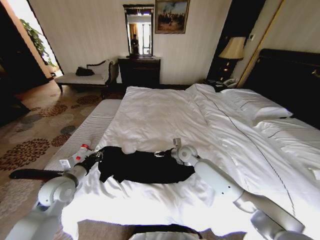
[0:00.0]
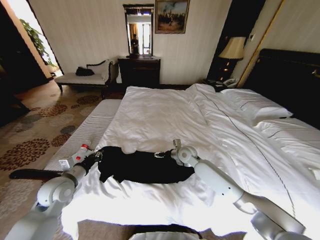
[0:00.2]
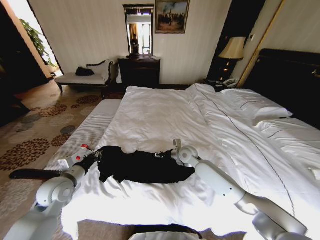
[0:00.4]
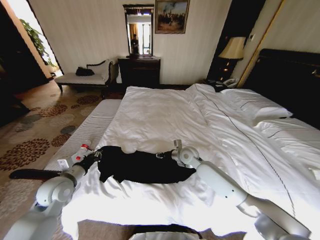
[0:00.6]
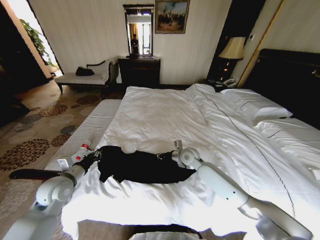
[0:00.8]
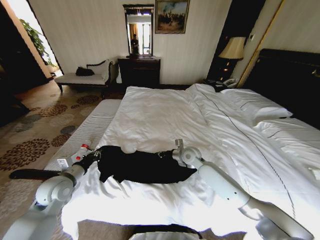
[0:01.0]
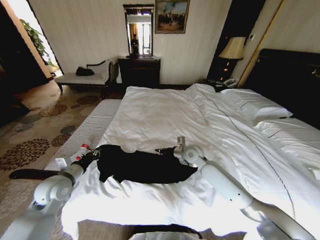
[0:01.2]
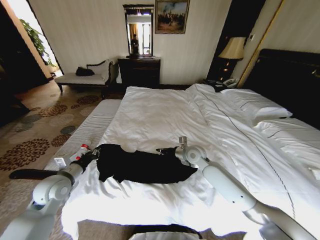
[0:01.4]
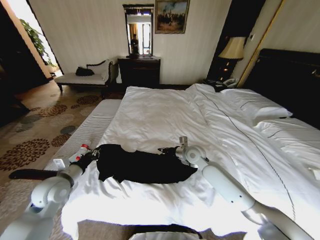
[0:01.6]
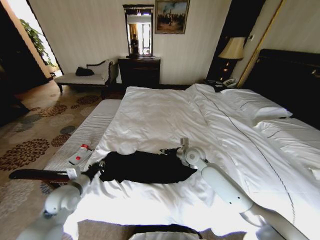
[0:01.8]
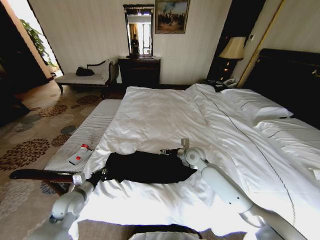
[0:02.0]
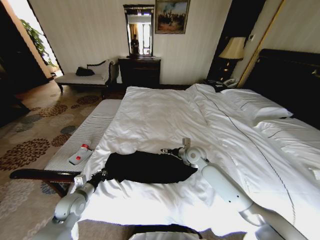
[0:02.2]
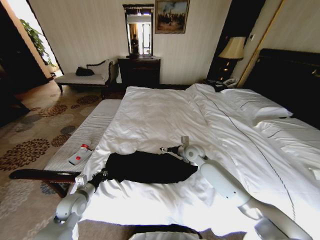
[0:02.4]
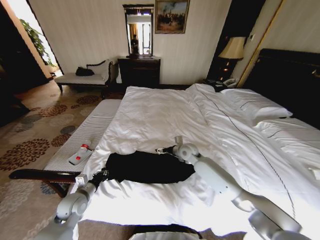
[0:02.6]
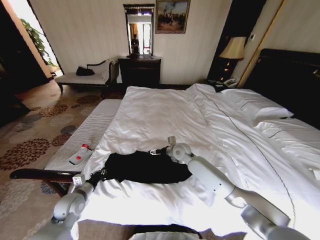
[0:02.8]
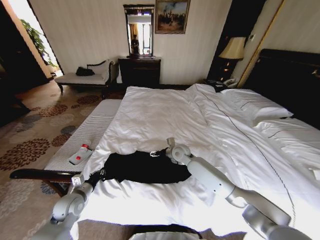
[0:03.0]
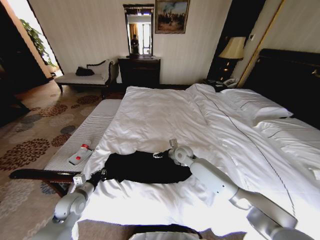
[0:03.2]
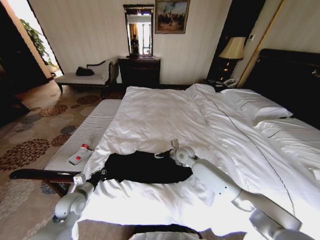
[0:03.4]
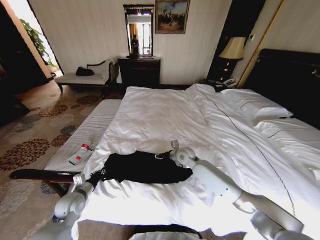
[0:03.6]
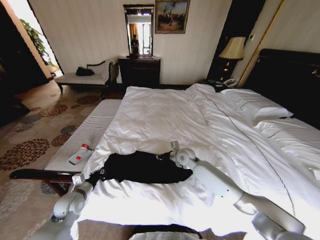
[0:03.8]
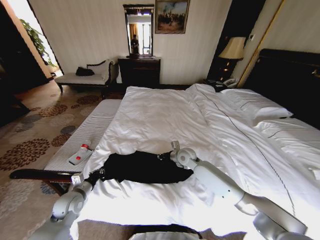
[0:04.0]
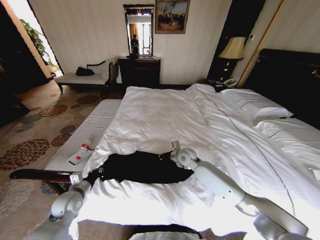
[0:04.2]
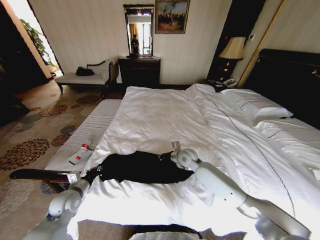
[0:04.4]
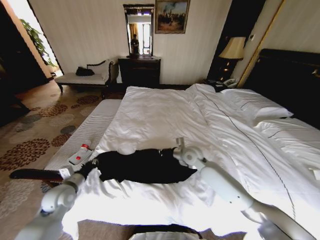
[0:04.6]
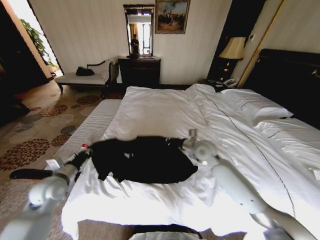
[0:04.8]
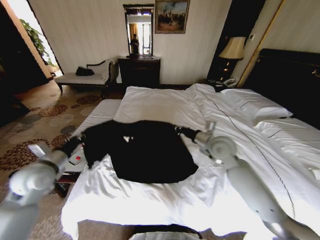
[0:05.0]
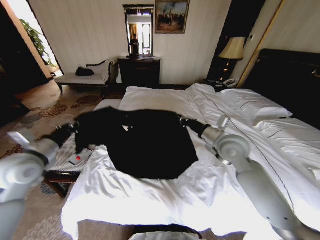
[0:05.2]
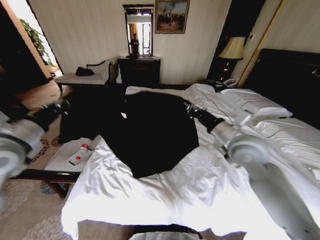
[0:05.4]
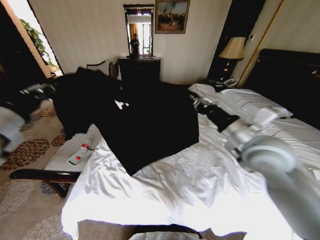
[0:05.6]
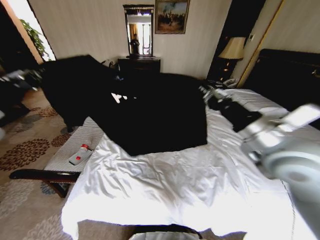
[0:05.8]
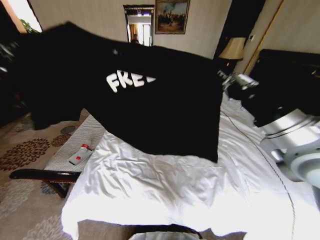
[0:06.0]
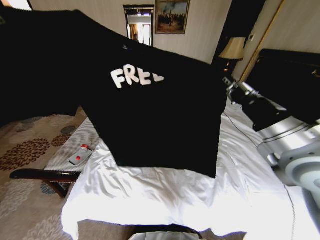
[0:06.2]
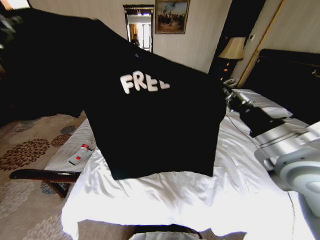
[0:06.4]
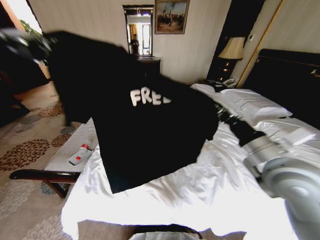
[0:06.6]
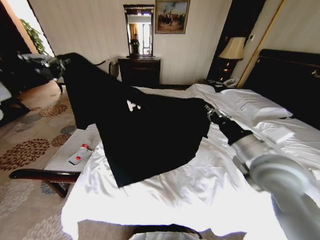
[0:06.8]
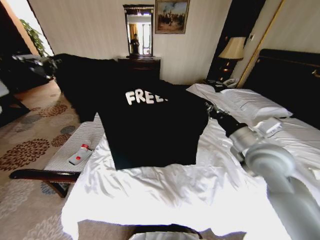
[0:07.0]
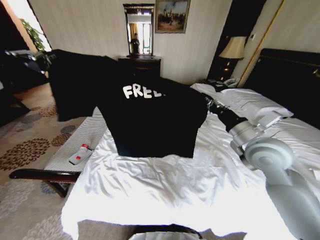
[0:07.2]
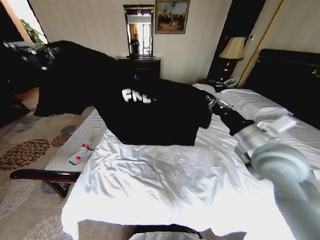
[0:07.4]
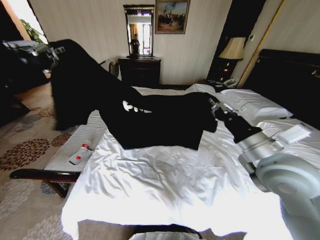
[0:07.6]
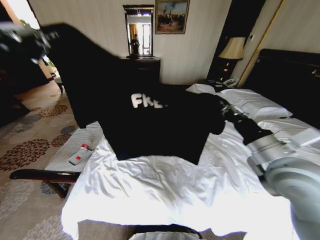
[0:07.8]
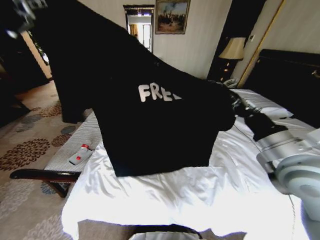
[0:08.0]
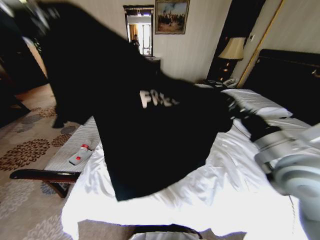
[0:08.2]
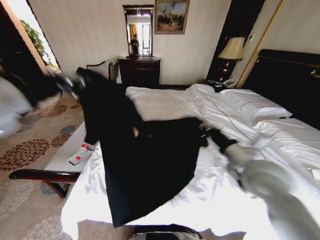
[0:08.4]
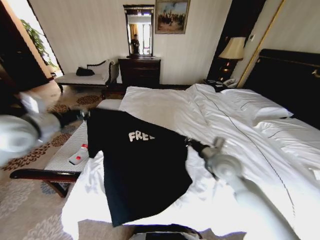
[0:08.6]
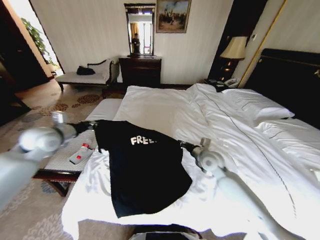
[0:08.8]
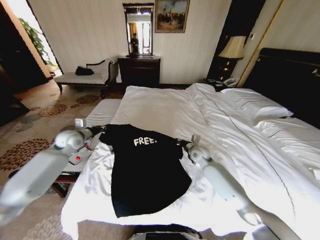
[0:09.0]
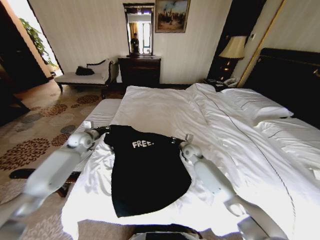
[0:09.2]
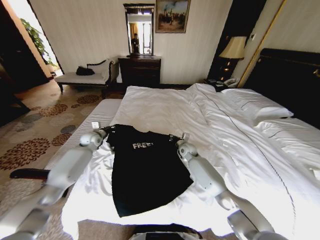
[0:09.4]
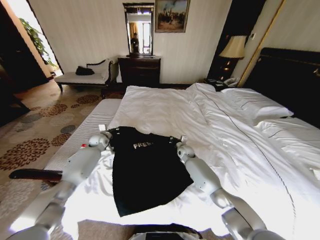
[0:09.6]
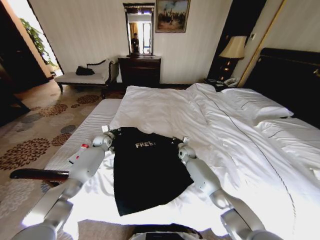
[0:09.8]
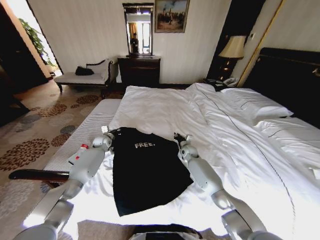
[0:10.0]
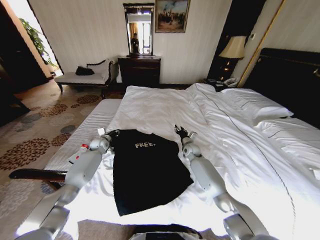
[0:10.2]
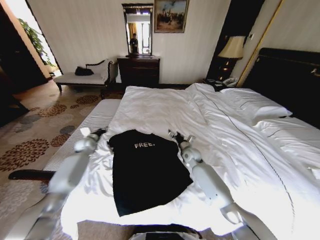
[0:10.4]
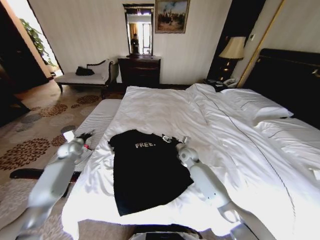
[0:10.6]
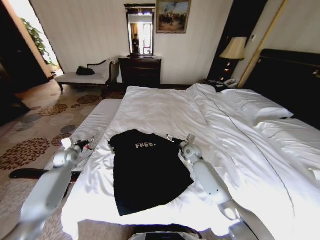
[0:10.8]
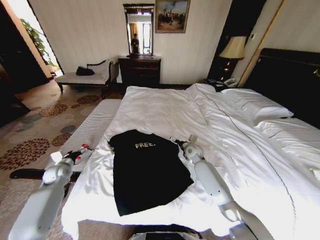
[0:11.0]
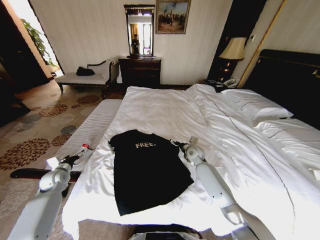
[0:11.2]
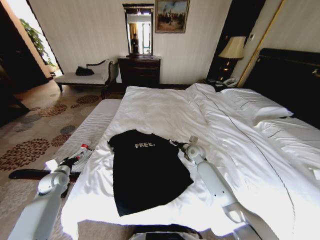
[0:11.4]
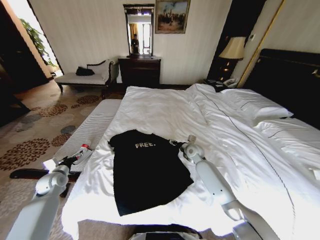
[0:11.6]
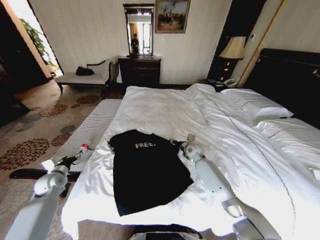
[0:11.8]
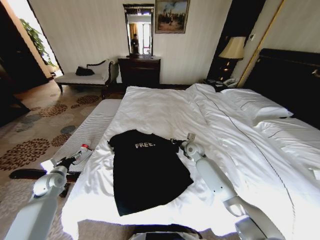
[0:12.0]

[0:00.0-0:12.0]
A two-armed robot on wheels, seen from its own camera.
Task of the whole recording: Fold the clothes on the bed.
0.0 to 1.6 s: The right gripper closes.
1.6 to 3.0 s: The right gripper shifts approximately 5 cm to the left, and opens up. Meanwhile the left gripper goes approximately 10 cm downward.
3.0 to 4.4 s: The right gripper closes its fingers.
4.4 to 6.0 s: The left gripper shifts approximately 40 cm upward. The right gripper heads upward, backward and to the right, covering some 40 cm.
6.0 to 7.6 s: The right gripper heads downward, covering about 5 cm. The left gripper goes approximately 5 cm to the right, and travels forward and back again, some 5 cm each way.
7.6 to 9.0 s: The left gripper travels downward and forward by some 40 cm. Meanwhile the right gripper heads forward and downward, covering roughly 30 cm.
9.0 to 10.4 s: The right gripper opens. The left gripper shifts some 15 cm downward and forward, and opens up.
10.4 to 12.0 s: The left gripper goes approximately 20 cm backward and to the left, and opens; the right gripper closes its fingers.

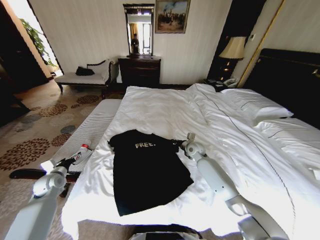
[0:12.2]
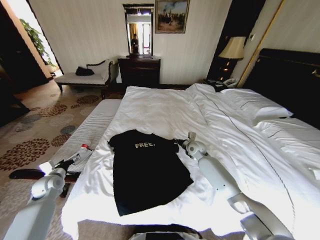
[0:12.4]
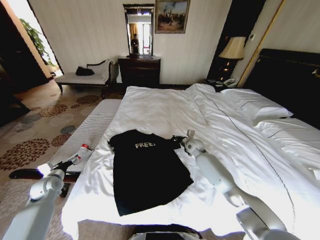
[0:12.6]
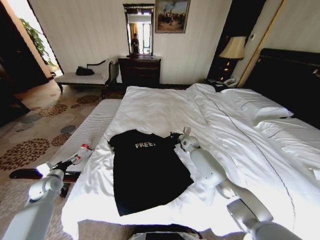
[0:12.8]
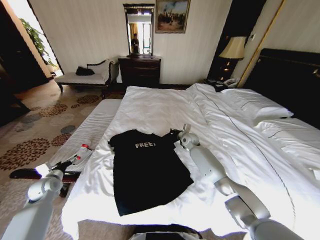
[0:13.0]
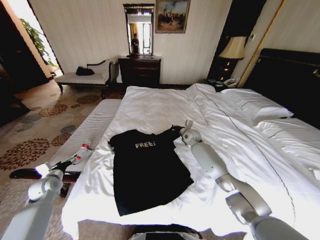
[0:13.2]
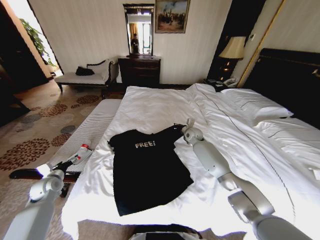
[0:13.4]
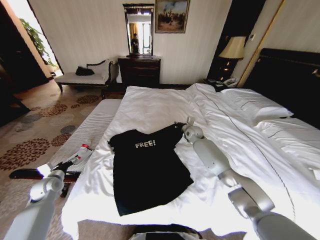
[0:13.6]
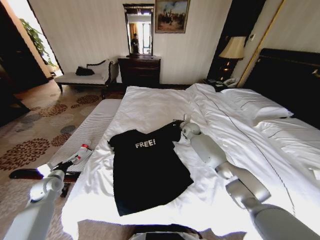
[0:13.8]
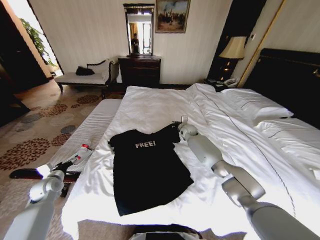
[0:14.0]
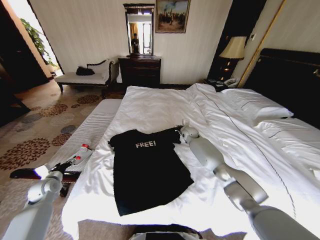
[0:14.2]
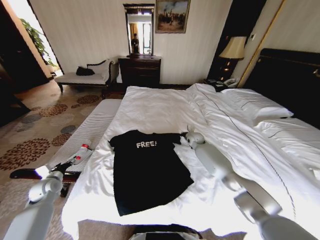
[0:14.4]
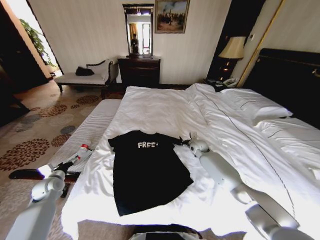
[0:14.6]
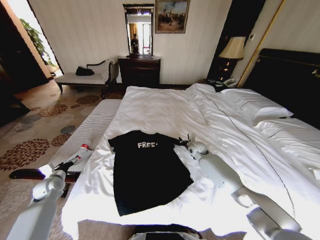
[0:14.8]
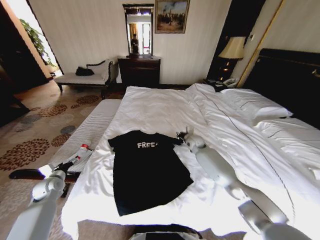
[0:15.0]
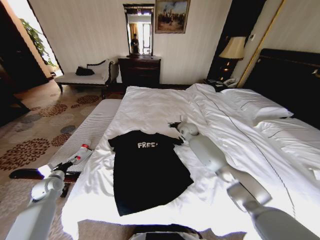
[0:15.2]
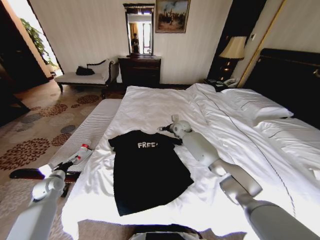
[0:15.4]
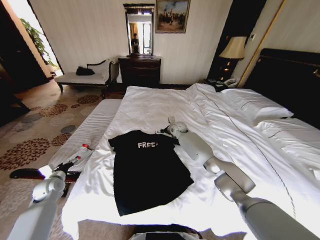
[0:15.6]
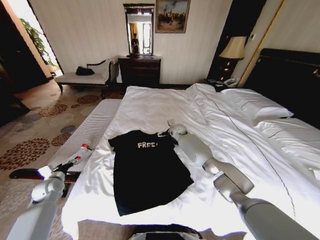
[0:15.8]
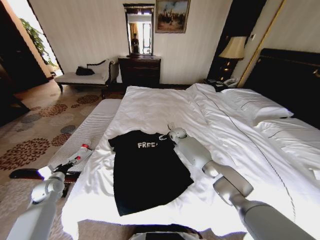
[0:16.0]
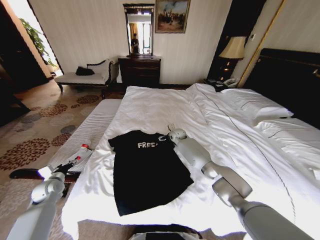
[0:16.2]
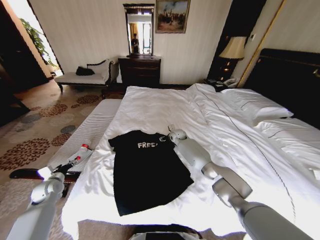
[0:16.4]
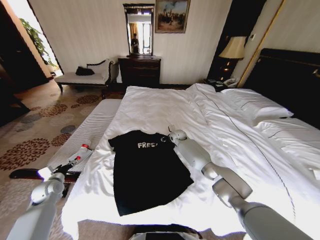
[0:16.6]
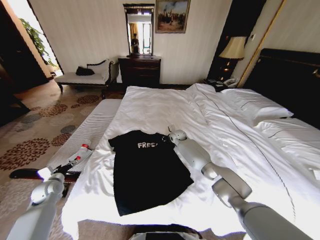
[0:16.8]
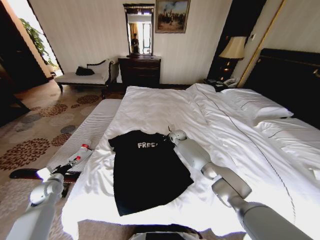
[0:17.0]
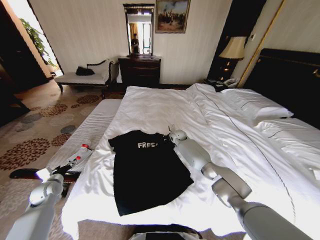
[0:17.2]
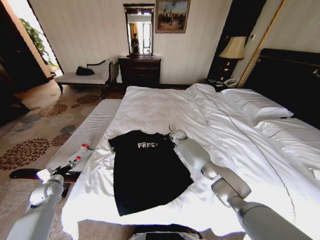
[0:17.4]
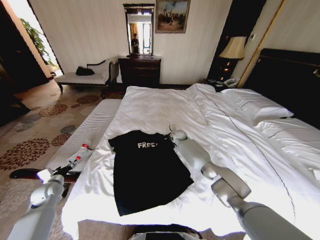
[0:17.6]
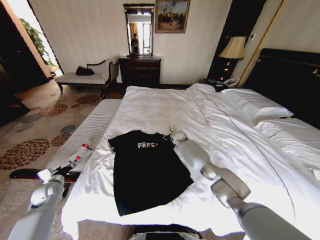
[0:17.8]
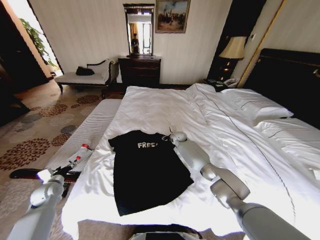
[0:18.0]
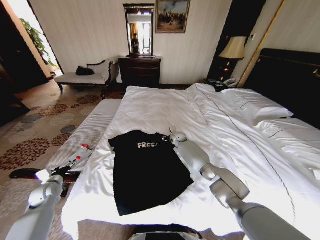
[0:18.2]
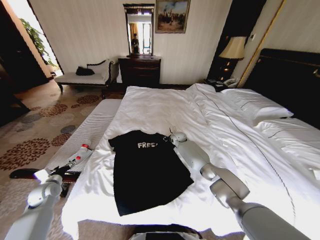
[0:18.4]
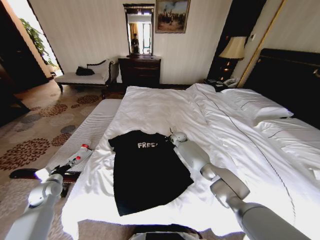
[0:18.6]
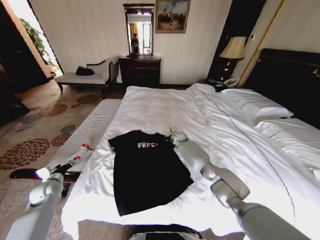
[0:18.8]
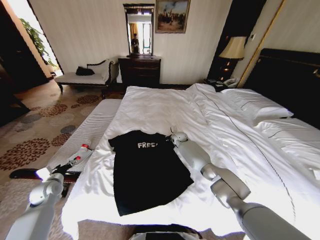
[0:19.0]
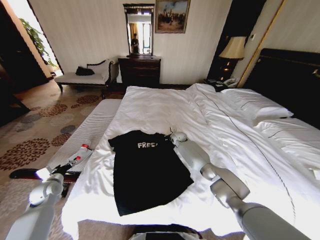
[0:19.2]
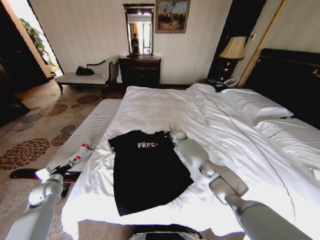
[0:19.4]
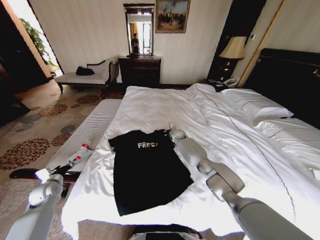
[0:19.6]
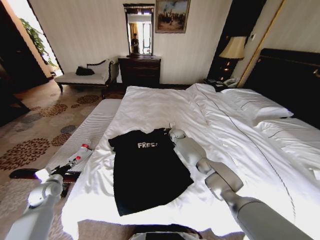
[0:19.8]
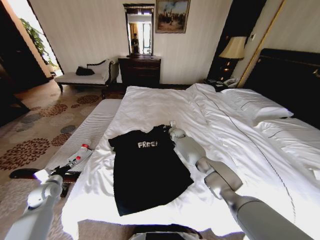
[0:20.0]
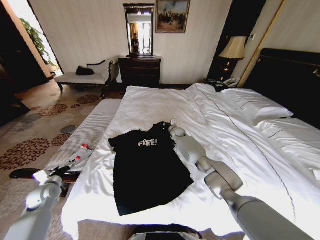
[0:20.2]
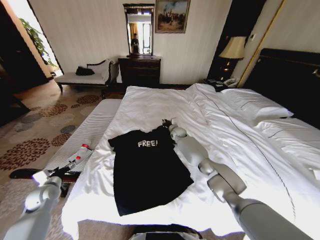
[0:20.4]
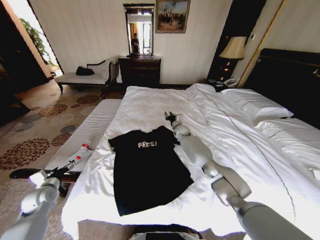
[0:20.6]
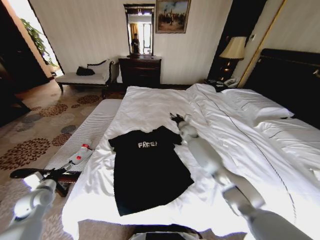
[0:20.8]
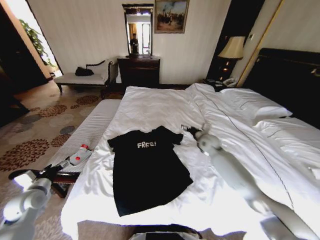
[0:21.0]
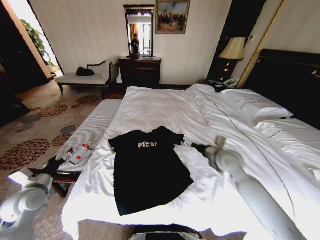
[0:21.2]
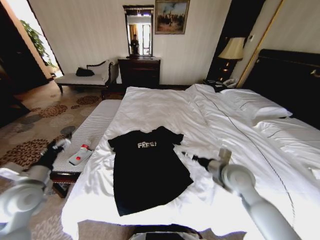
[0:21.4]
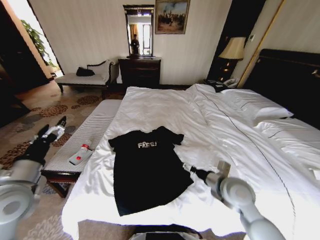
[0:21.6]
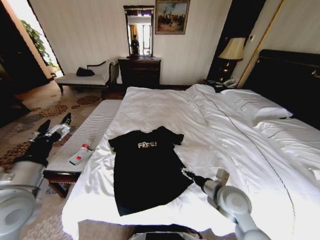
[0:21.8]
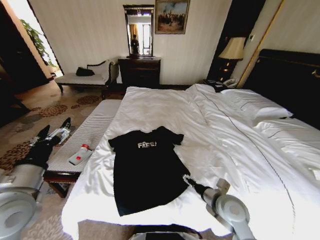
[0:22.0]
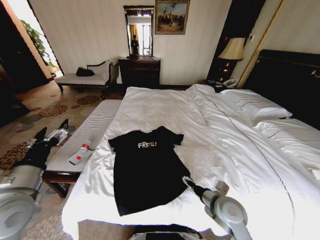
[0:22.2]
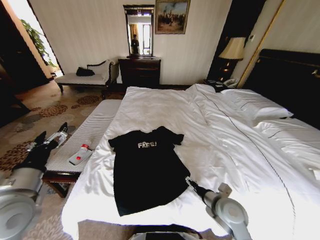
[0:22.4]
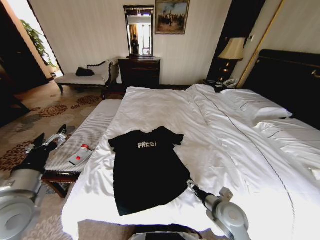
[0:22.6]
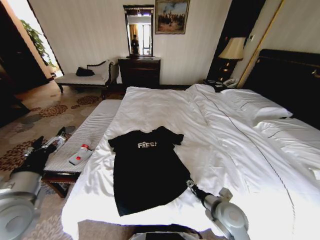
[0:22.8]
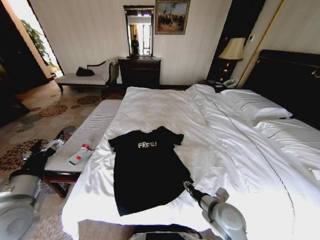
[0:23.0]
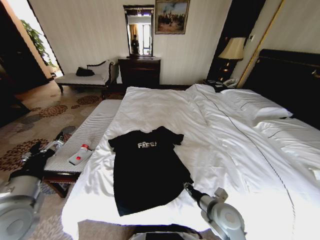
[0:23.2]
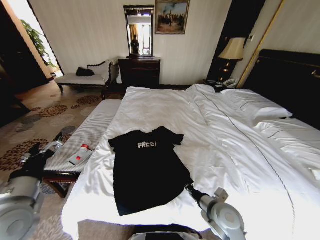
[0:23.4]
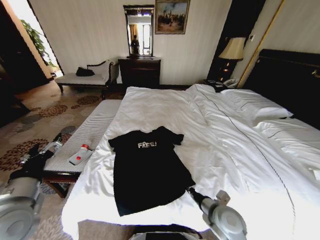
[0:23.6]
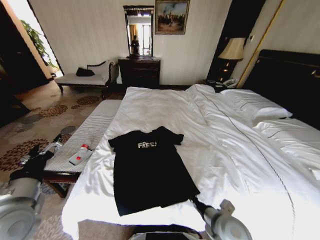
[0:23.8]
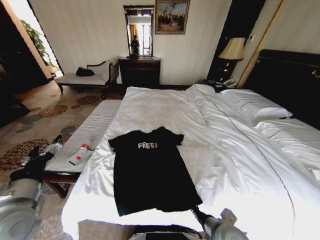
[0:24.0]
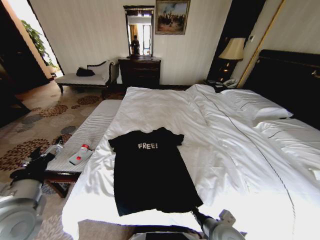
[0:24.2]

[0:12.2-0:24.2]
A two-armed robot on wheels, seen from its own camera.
Task of the whole recording: Fold the clothes on the bed.
12.2 to 13.8 s: The right gripper travels forward by approximately 10 cm.
13.8 to 15.2 s: The right gripper goes backward and returns, about 10 cm each way, and opens its fingers.
15.2 to 16.6 s: The right gripper heads downward, covering some 5 cm, and opens, then closes again.
16.6 to 18.2 s: The right gripper closes and opens again.
18.2 to 19.8 s: The right gripper closes its fingers.
19.8 to 21.2 s: The right gripper shifts some 35 cm backward, to the right and upward, and opens up, while the left gripper goes about 10 cm upward and backward.
21.2 to 22.6 s: The left gripper heads upward, to the right and backward, covering some 15 cm; the right gripper moves backward and downward, roughly 20 cm.
22.6 to 24.2 s: The right gripper heads backward, covering roughly 5 cm, and closes up.
